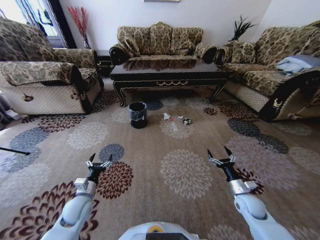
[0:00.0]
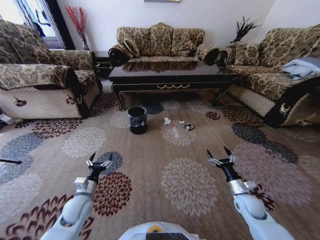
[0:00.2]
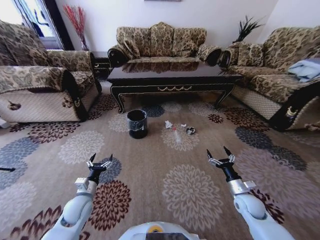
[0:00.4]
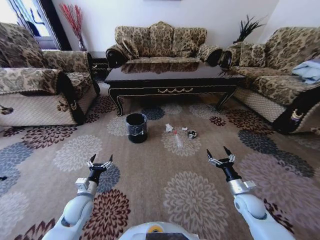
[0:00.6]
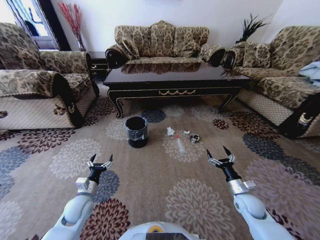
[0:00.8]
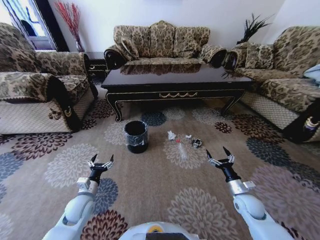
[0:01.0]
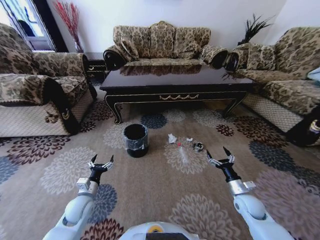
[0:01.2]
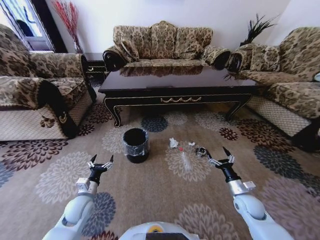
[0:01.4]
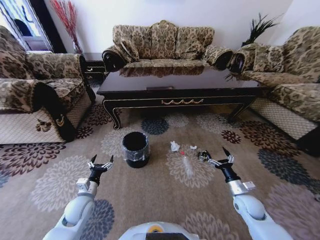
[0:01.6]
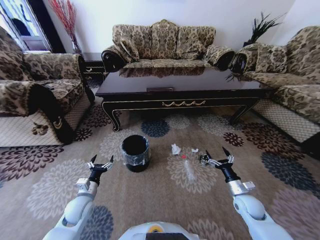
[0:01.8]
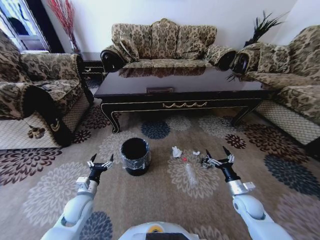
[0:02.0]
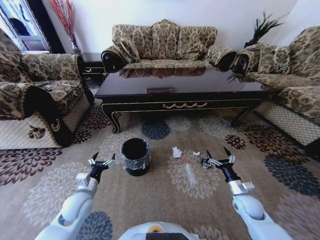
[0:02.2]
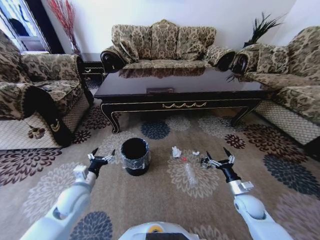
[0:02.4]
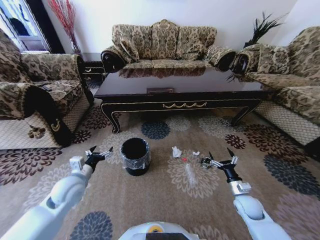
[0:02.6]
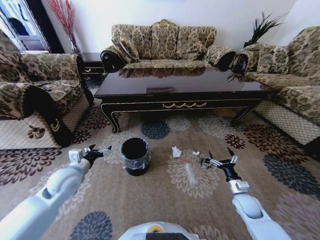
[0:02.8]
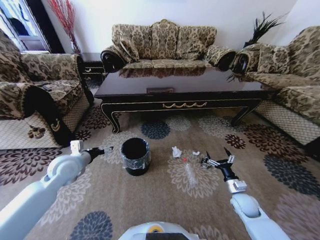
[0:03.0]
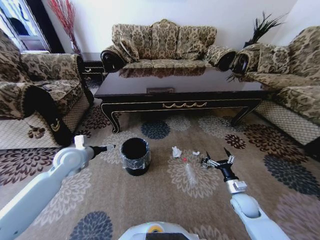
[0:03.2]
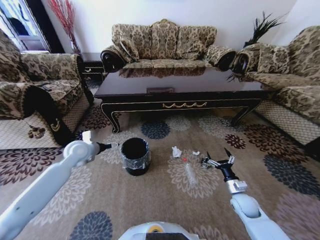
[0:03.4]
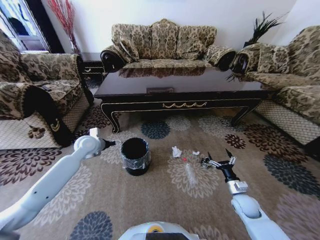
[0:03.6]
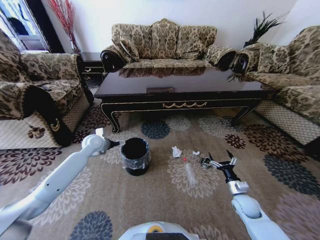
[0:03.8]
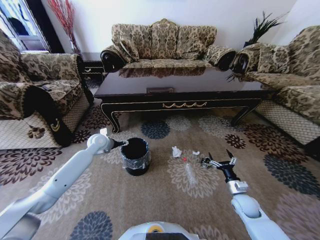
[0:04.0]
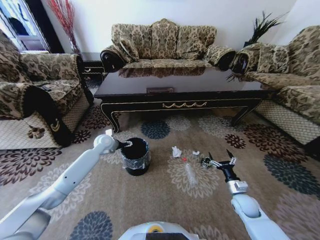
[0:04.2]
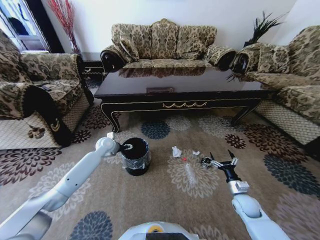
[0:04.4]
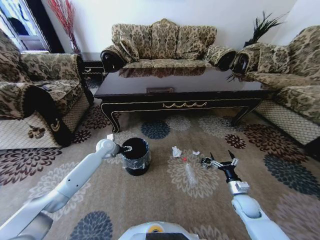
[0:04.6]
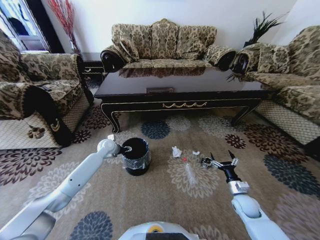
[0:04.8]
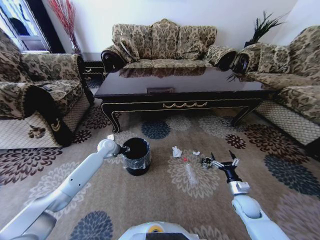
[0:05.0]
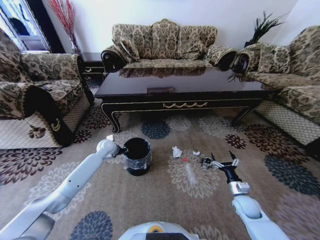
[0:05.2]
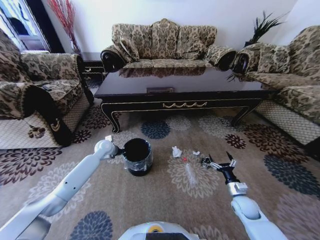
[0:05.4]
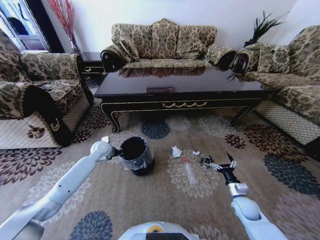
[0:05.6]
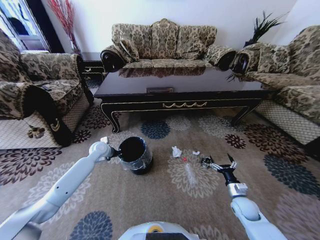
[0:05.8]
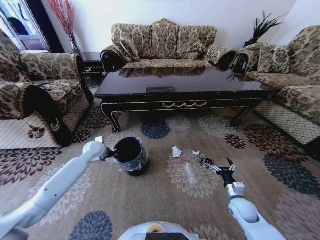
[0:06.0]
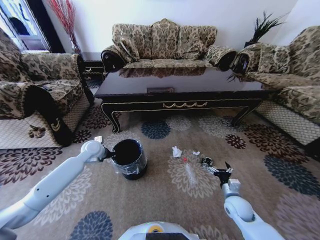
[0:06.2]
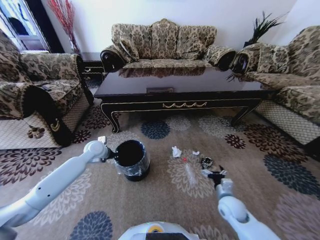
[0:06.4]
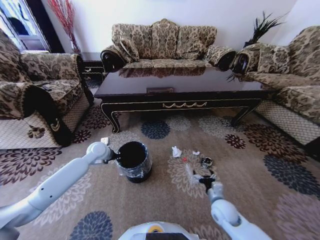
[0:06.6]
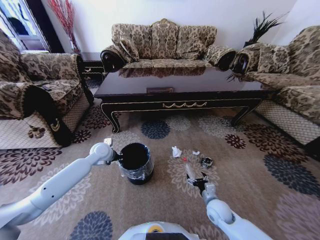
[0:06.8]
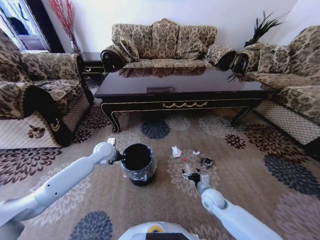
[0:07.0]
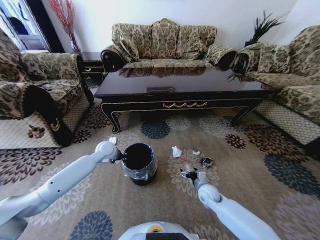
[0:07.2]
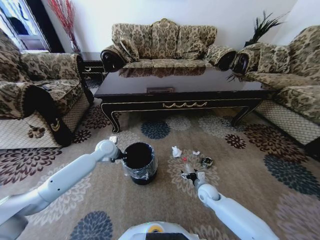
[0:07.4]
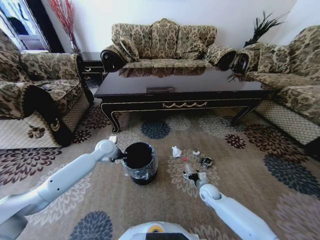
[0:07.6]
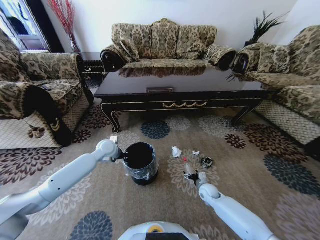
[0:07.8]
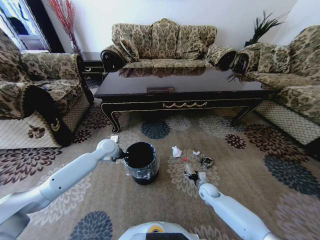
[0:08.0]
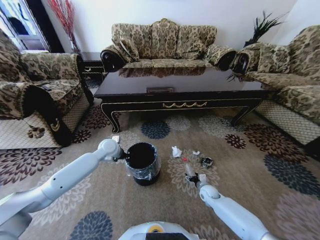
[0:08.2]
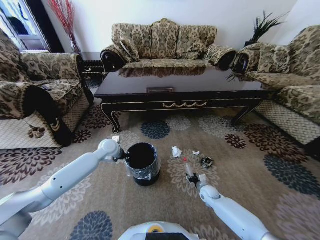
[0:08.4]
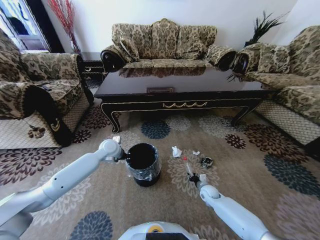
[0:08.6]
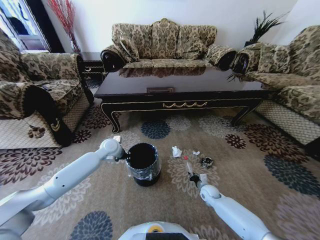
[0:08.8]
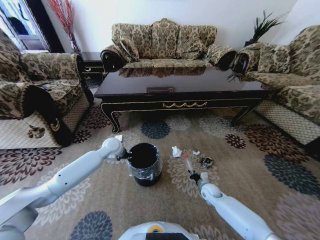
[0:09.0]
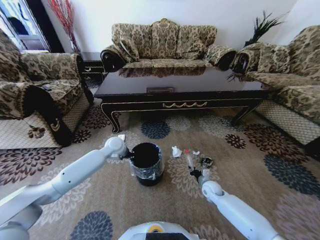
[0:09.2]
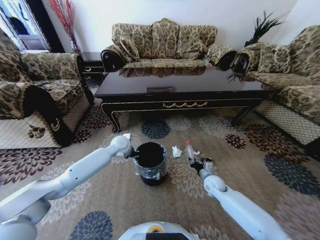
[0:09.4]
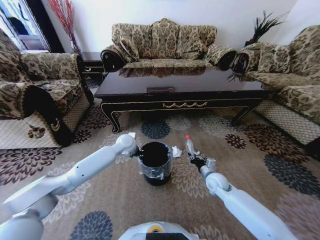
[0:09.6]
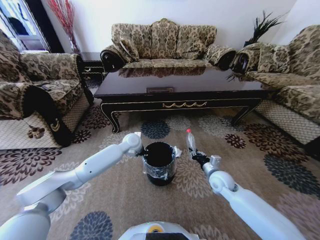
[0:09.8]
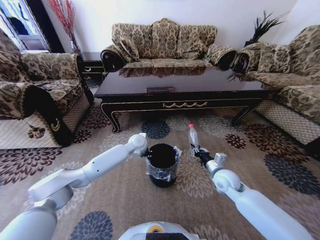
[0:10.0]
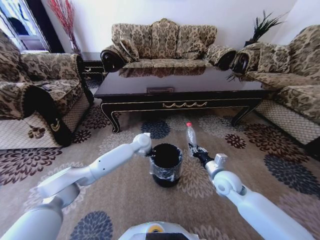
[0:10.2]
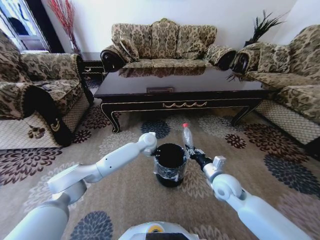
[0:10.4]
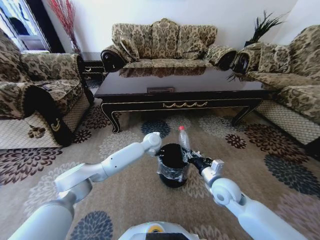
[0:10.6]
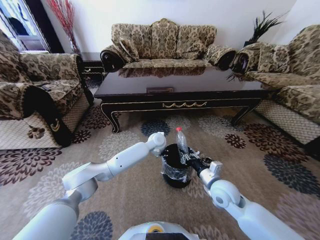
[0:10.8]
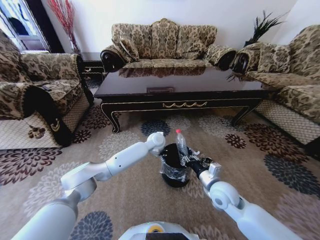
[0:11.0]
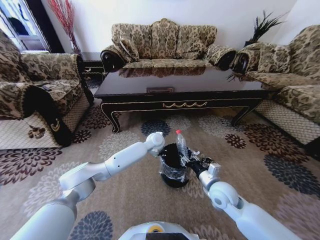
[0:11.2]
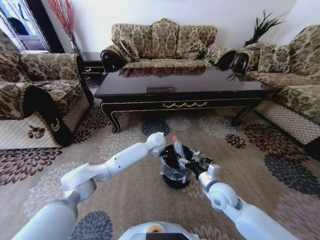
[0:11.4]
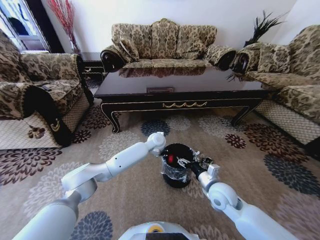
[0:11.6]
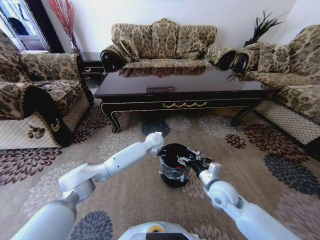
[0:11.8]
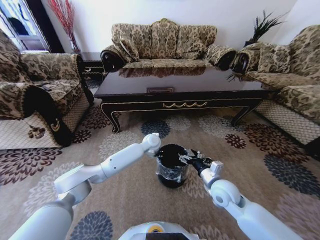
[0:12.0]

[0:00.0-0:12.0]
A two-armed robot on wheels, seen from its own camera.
Task of the whole recording: Move to the front of the table and pick up the trash from the floor, then place it into the trash bin.
0:01.6 to 0:03.0: The left gripper heads upward and forward, covering some 20 cm.
0:03.0 to 0:04.4: The left gripper heads forward, downward and to the right, covering some 20 cm.
0:04.4 to 0:06.0: The left gripper ends up some 5 cm from where it was, and closes.
0:06.0 to 0:07.6: The left gripper heads to the right, covering approximately 5 cm. Meanwhile the right gripper goes approximately 15 cm to the left, forward and downward.
0:07.6 to 0:09.0: The right gripper closes.
0:09.0 to 0:10.4: The left gripper moves to the right, some 20 cm. Meanwhile the right gripper shifts approximately 20 cm upward.
0:10.4 to 0:12.0: The right gripper opens.

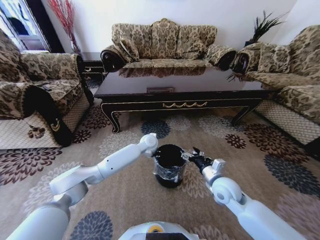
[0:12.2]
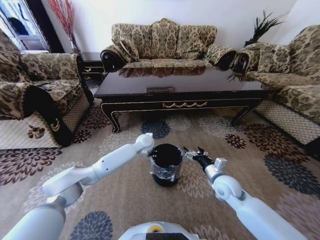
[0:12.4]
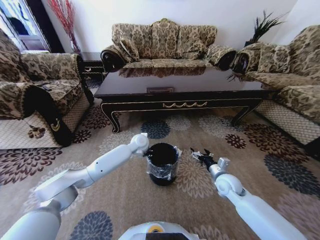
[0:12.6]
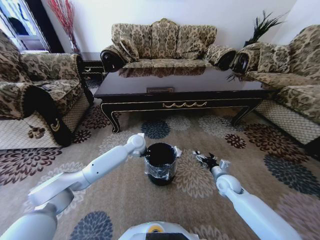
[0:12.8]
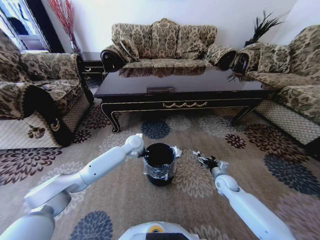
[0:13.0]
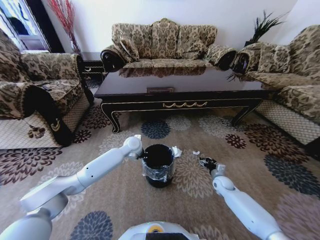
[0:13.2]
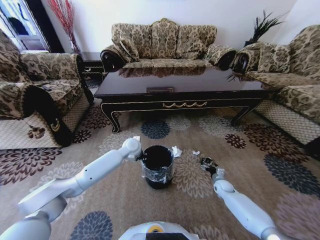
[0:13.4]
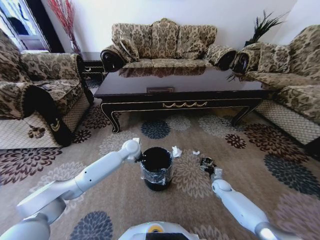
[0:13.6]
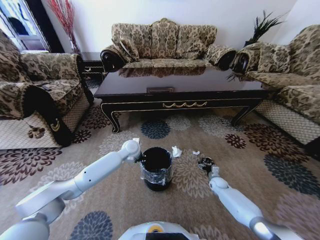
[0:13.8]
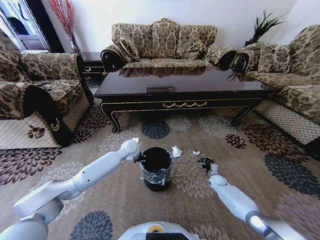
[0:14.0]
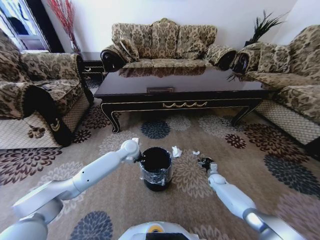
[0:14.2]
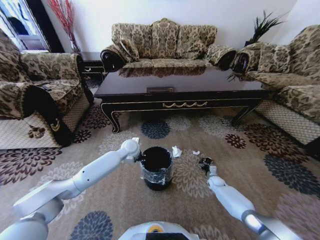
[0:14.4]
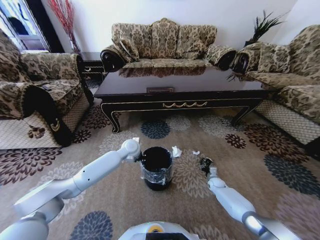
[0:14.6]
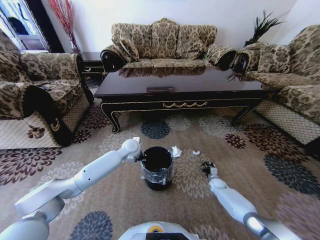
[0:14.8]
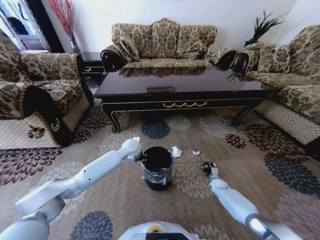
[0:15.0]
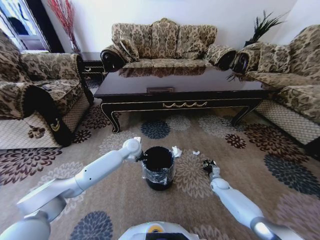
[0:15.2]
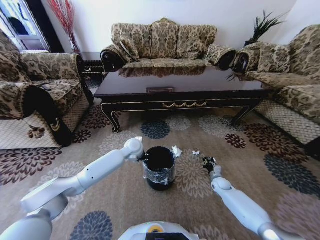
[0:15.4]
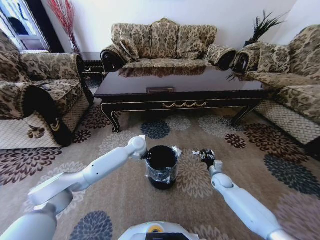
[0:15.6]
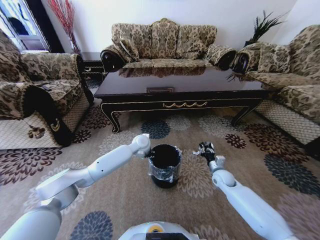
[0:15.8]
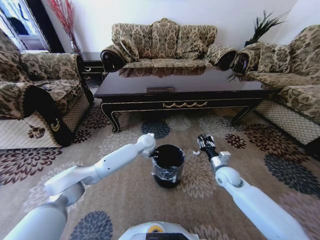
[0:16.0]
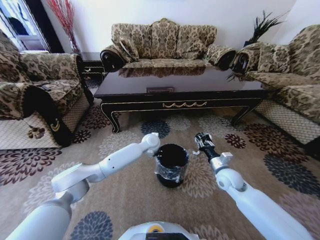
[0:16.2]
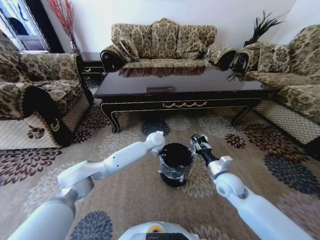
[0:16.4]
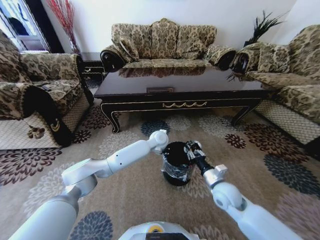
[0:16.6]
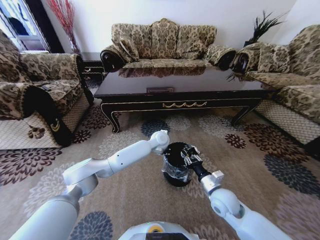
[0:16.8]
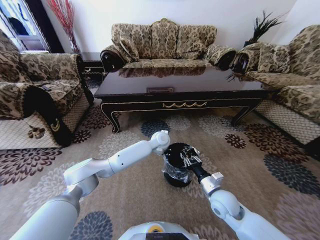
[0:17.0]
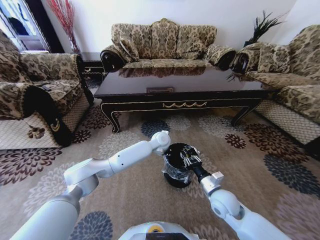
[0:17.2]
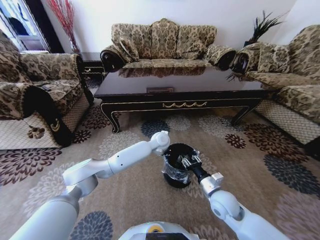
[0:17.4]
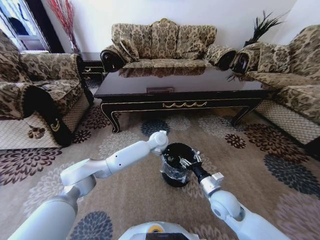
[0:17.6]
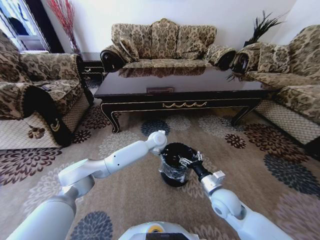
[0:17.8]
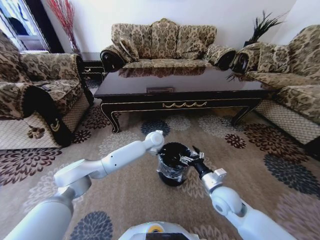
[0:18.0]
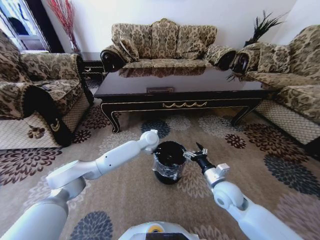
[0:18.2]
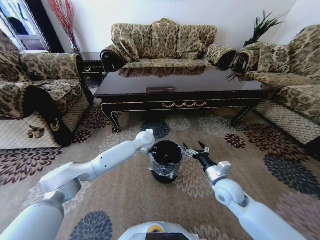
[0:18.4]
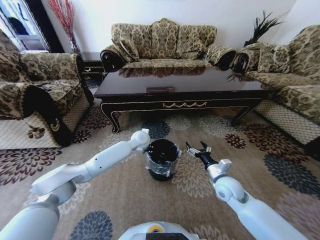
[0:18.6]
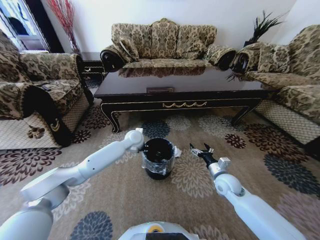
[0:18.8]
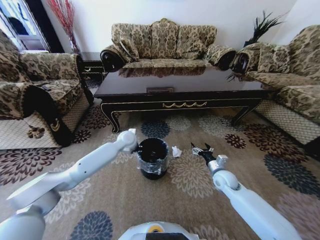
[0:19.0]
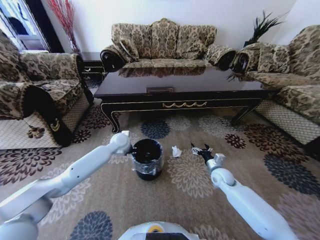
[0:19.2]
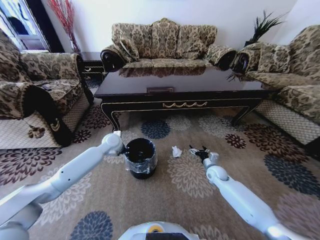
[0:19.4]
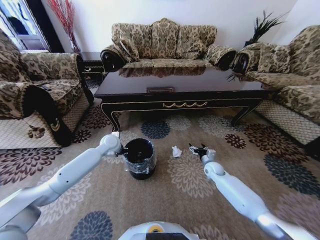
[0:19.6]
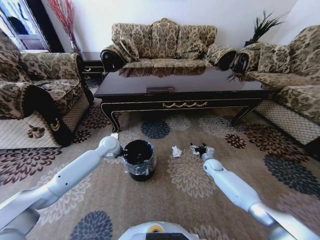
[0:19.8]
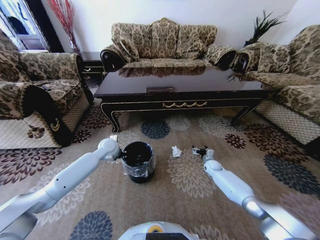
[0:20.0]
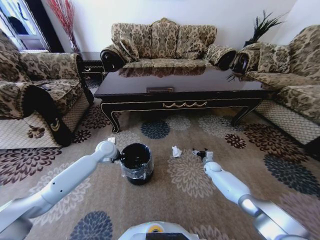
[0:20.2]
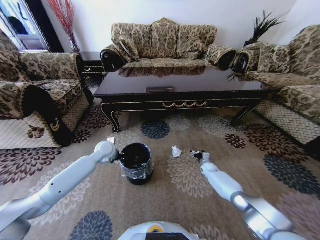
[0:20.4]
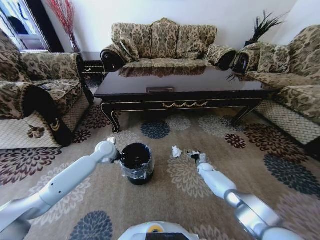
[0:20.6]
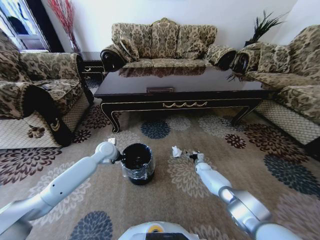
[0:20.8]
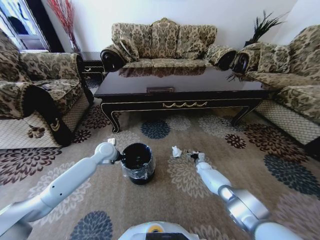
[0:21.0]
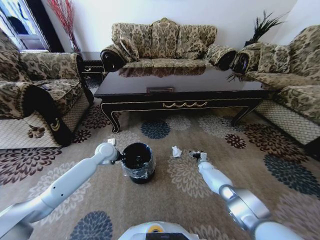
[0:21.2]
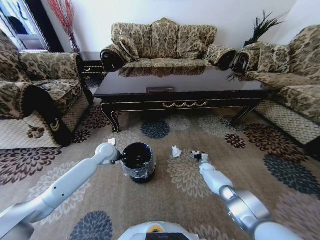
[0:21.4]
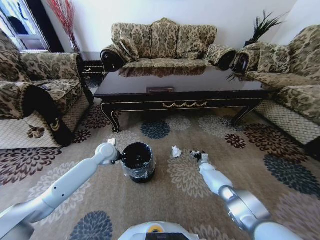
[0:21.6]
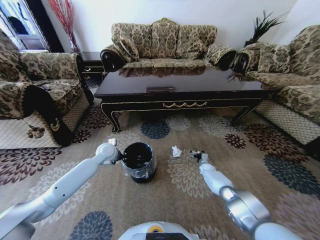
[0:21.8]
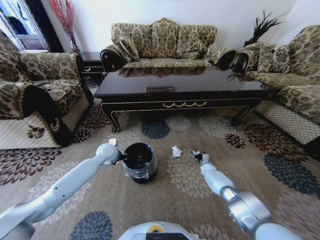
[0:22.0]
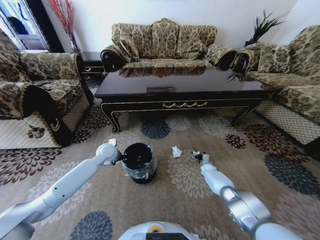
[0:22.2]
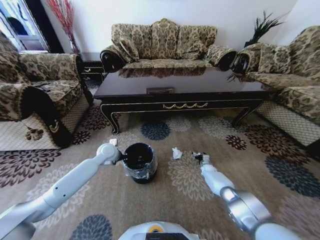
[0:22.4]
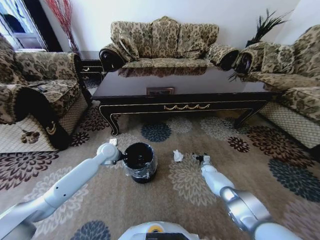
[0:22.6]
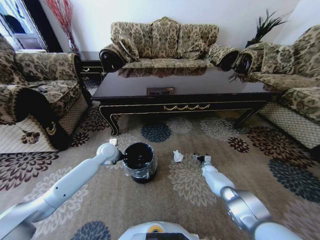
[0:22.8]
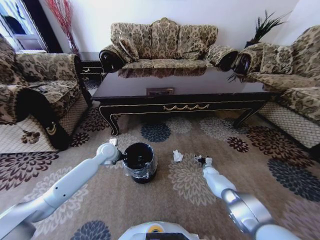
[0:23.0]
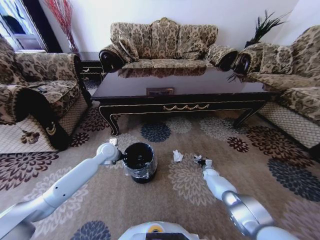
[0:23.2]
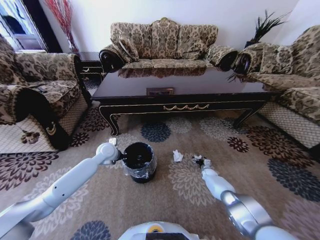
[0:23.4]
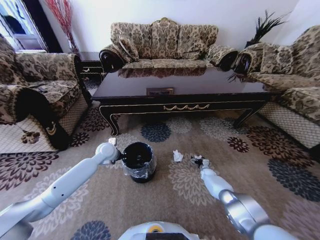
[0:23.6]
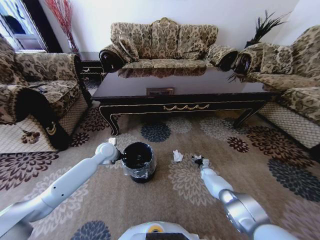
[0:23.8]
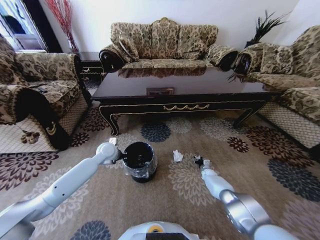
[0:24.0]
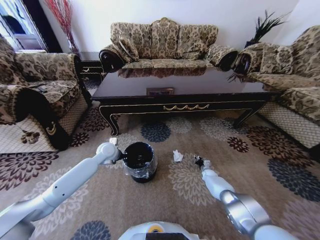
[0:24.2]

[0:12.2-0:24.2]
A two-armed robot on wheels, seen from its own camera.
Task of the whole recording: Move to the front of the table and pick up the trash from the floor, then place it into the trash bin.
0:12.2 to 0:13.8: The left gripper moves to the left, roughly 10 cm; the right gripper goes some 30 cm downward, to the right and forward.
0:13.8 to 0:15.2: The right gripper closes its fingers.
0:15.2 to 0:16.6: The left gripper shifts about 15 cm to the right. The right gripper travels upward, to the left and backward by about 30 cm.
0:16.6 to 0:18.2: The right gripper opens its fingers.
0:18.2 to 0:19.8: The right gripper travels forward, downward and to the right by about 25 cm. The left gripper moves to the left, roughly 20 cm.
0:19.8 to 0:21.2: The right gripper shifts roughly 10 cm downward.
0:22.6 to 0:24.2: The right gripper closes its fingers.
